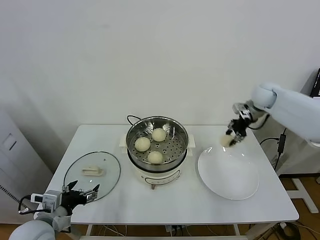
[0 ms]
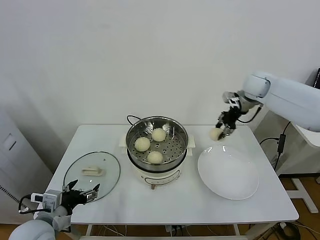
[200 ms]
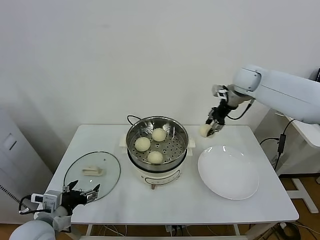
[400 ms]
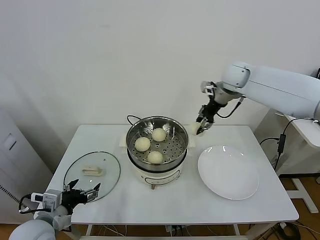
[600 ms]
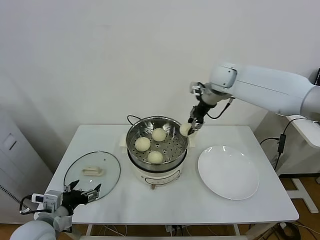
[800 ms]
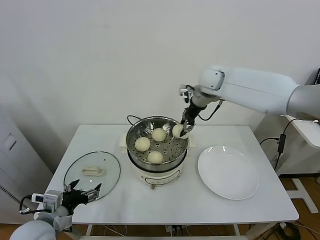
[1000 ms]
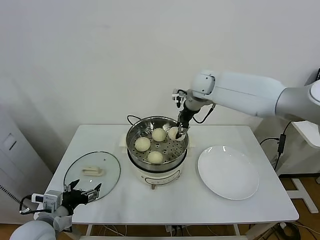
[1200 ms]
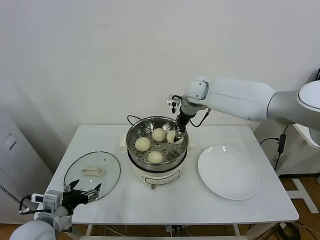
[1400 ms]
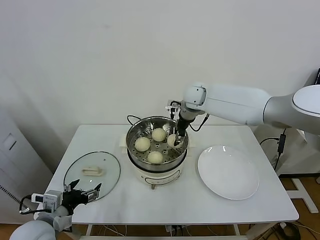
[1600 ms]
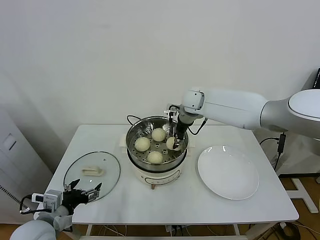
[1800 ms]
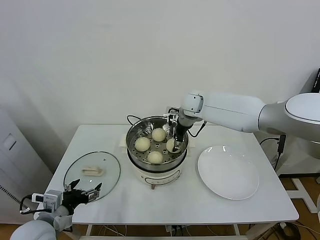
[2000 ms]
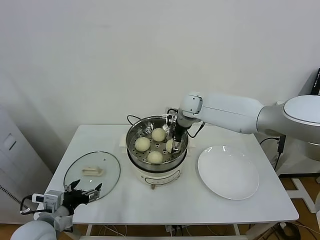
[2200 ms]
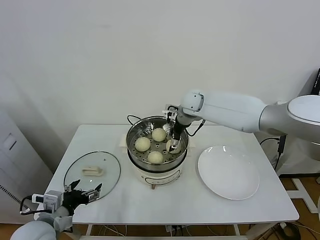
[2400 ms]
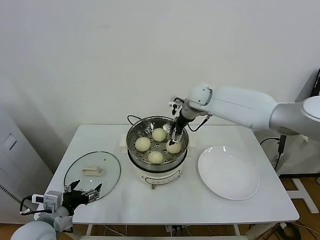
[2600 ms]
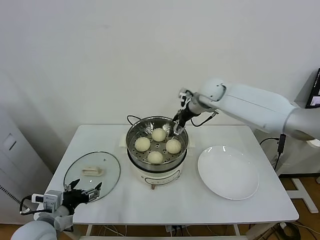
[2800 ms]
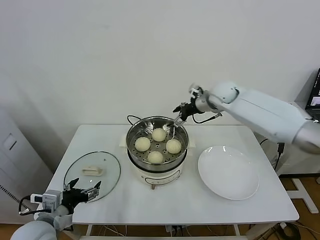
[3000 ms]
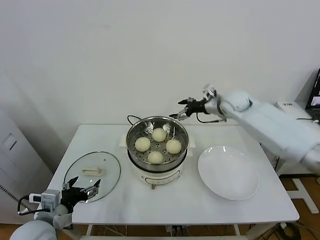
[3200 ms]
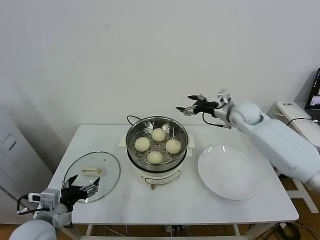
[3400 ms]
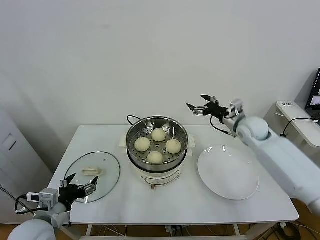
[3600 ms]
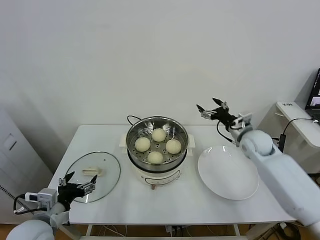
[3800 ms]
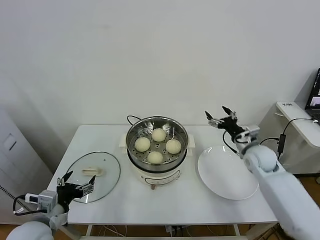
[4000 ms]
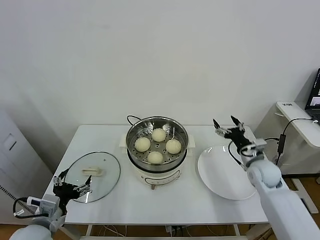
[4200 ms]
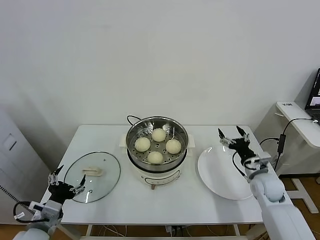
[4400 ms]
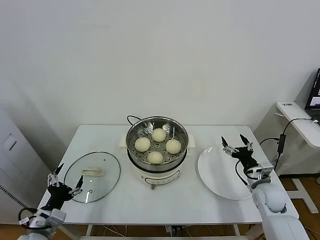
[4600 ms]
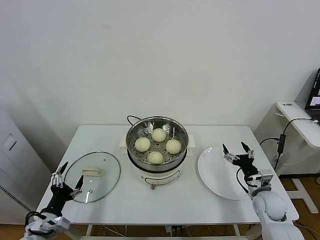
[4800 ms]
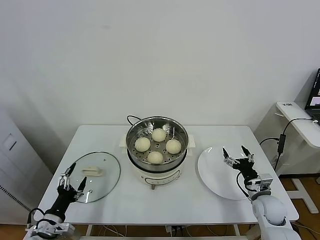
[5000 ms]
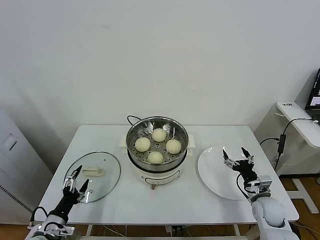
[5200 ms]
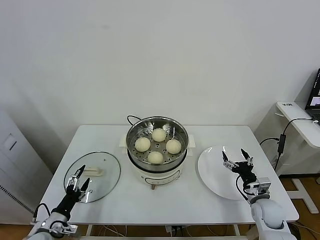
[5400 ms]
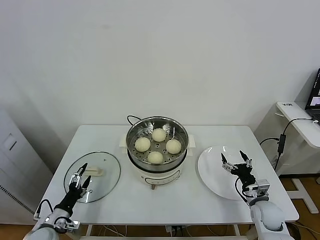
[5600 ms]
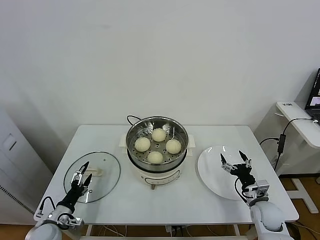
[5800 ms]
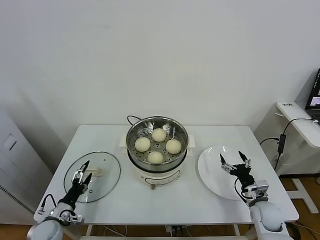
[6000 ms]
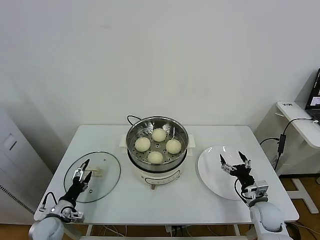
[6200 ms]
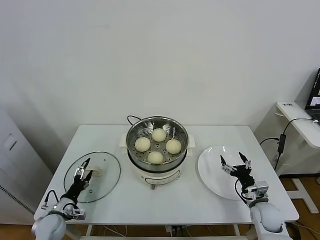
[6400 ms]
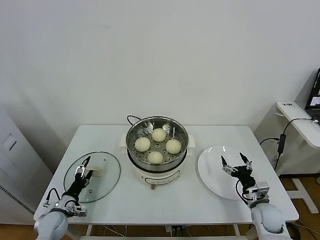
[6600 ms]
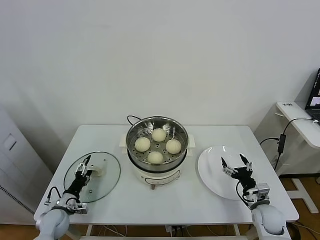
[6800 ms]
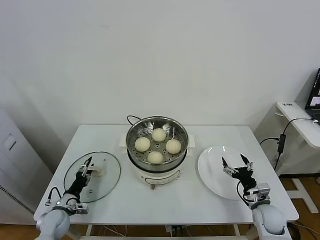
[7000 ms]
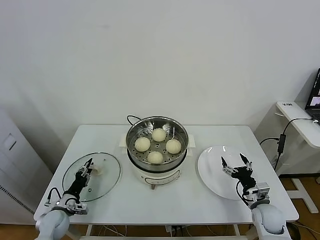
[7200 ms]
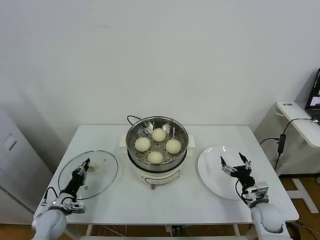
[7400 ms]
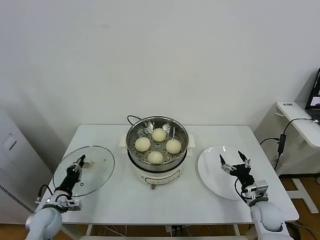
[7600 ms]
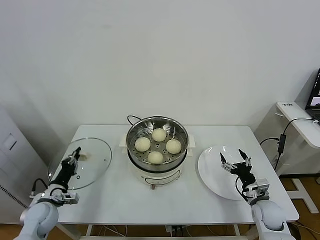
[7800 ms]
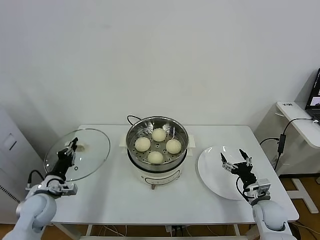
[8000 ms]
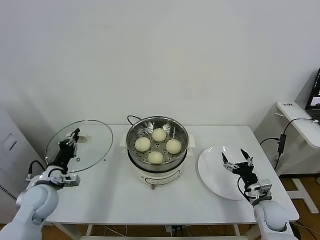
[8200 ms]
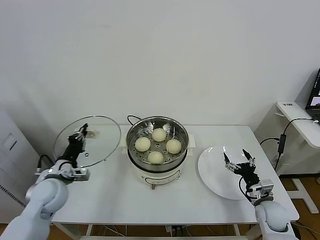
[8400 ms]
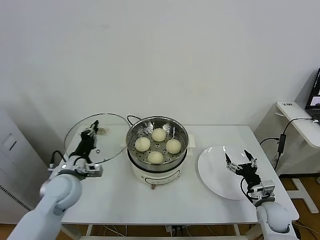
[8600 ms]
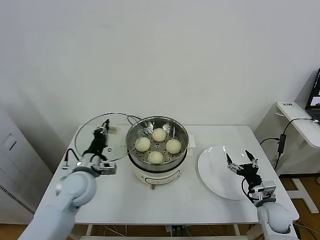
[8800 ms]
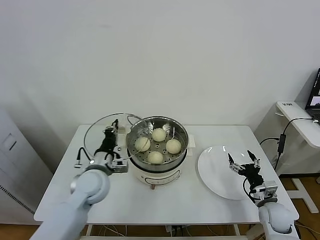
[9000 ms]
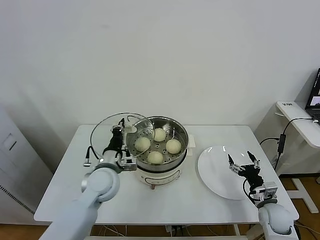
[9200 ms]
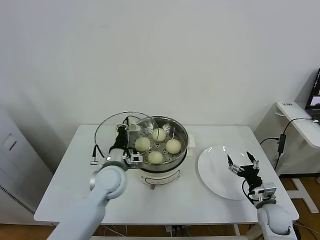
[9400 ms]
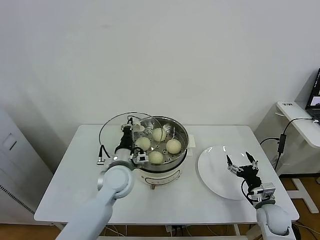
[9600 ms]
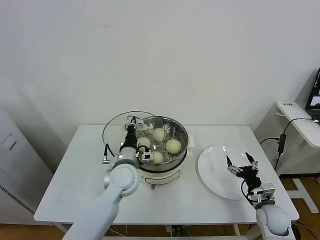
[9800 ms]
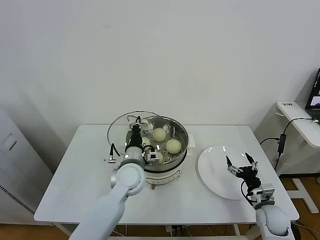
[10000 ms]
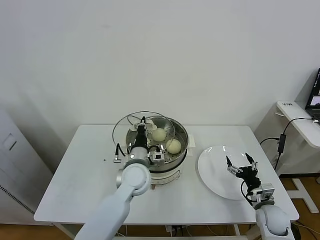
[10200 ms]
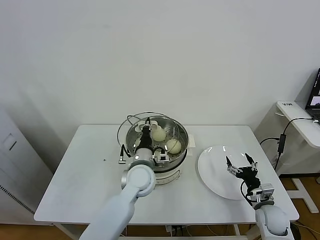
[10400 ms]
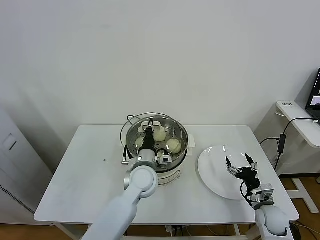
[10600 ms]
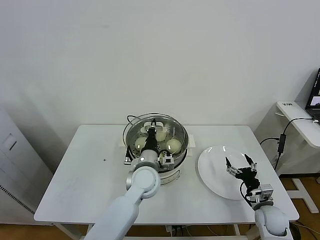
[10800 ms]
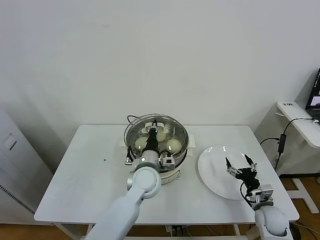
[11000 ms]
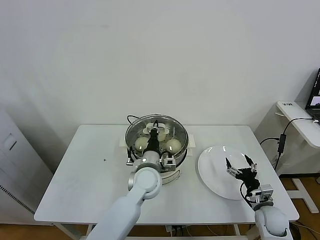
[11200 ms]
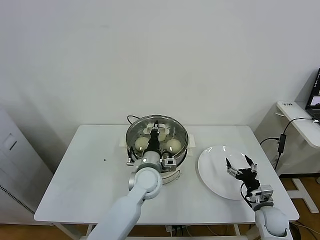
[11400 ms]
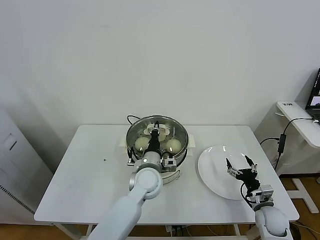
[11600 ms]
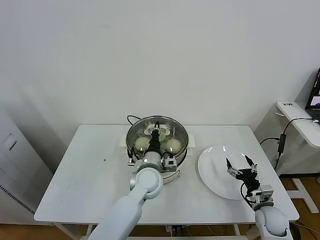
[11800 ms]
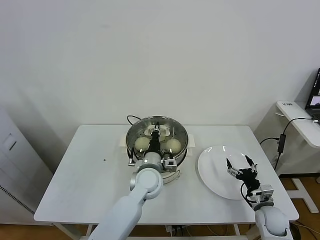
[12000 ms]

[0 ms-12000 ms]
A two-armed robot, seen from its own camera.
Task of the whole recording: take steamed baozi put them in steamer.
Step, 0 ms to 2200 ms: Place the baozi on the steamer with right gripper.
Step, 2600 ms to 7600 ms: Grasp the pot lid with left gripper.
0 ms to 1600 ms: The right gripper travels to the left by roughly 25 cm.
1600 ms to 3000 ms: The right gripper travels to the right by some 10 cm, and opens.
3000 ms to 4400 ms: The right gripper shifts roughly 35 cm downward, backward and to the right.
4400 ms to 6000 ms: The right gripper moves downward and backward, some 10 cm. The left gripper travels downward and forward by roughly 15 cm.
6000 ms to 7600 ms: The left gripper closes up.
7600 ms to 9000 ms: The left gripper heads to the right and upward, covering about 25 cm.
9000 ms to 10400 ms: The left gripper moves to the right, about 15 cm.
10400 ms to 12000 ms: The grippers stay close to where they were, moving slightly.

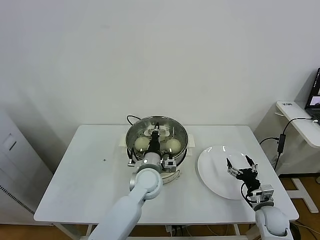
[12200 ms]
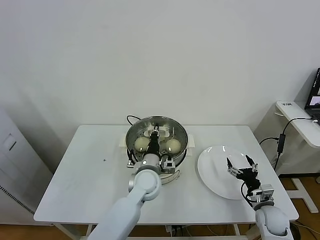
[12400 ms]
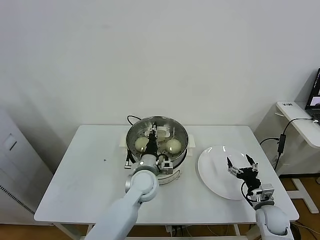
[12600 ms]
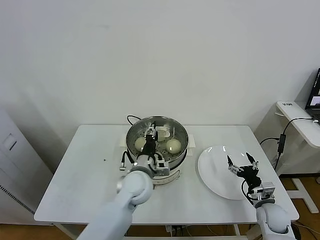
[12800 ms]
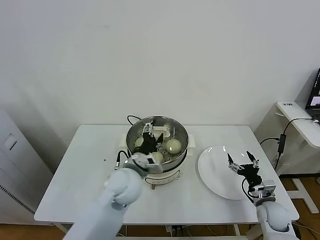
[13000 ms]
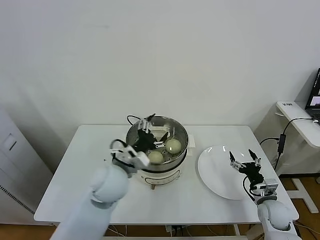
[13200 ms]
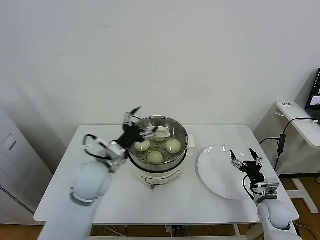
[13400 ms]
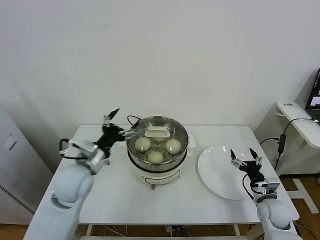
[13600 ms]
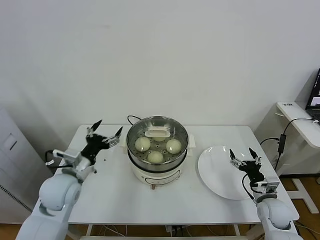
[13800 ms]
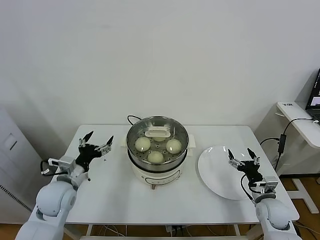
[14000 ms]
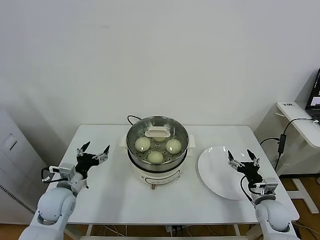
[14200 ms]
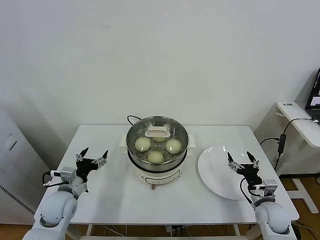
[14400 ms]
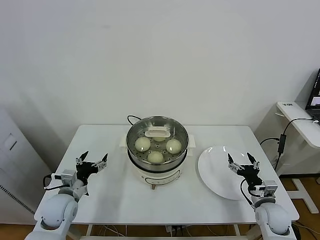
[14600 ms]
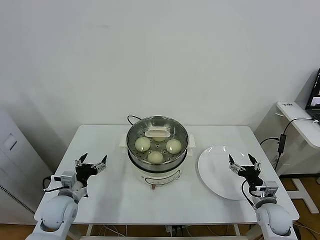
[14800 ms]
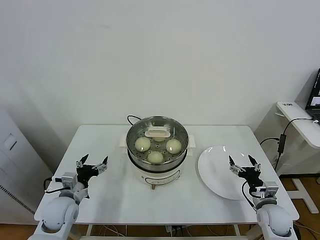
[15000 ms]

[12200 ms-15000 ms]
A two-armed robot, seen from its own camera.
Task of the whole recording: take steamed baozi put them in steamer.
12200 ms to 13600 ms: The left gripper goes about 20 cm to the left and upward, and opens its fingers.
13600 ms to 15000 ms: The left gripper moves downward and to the left, some 15 cm.

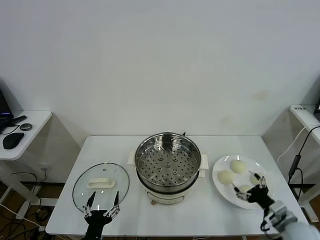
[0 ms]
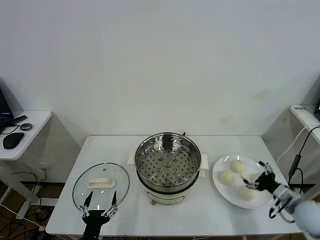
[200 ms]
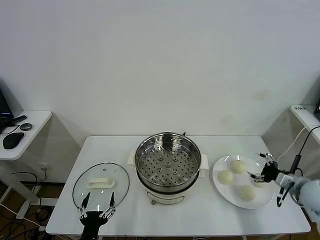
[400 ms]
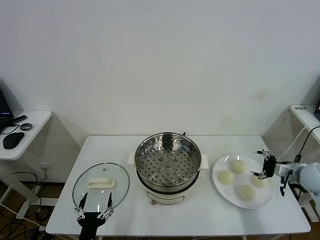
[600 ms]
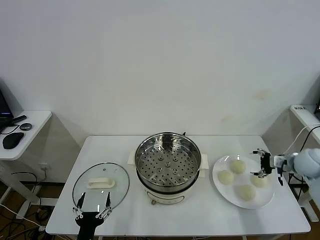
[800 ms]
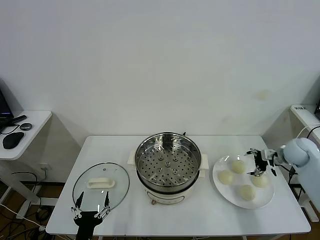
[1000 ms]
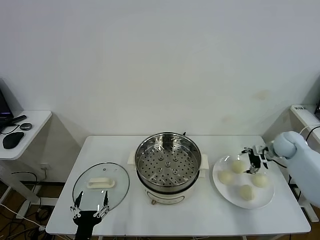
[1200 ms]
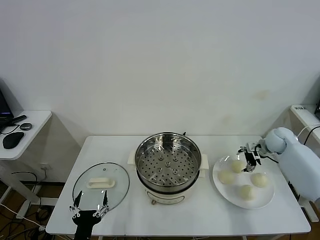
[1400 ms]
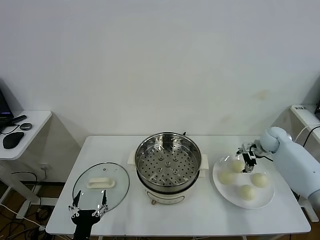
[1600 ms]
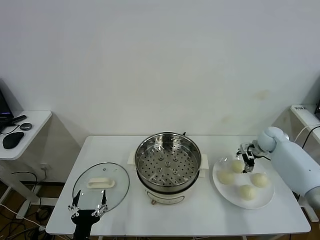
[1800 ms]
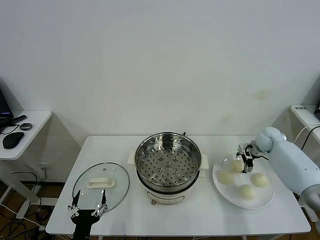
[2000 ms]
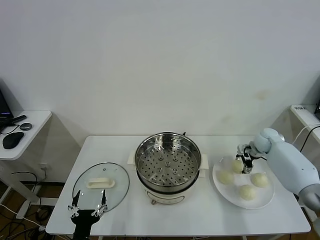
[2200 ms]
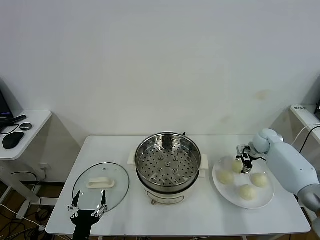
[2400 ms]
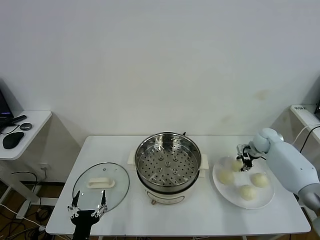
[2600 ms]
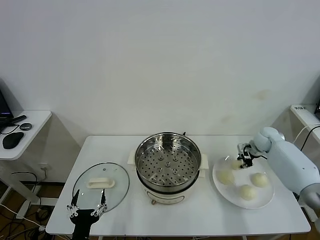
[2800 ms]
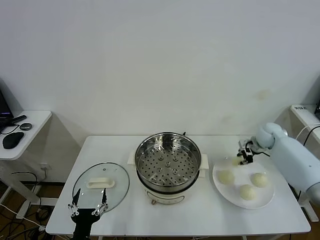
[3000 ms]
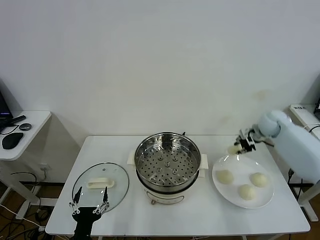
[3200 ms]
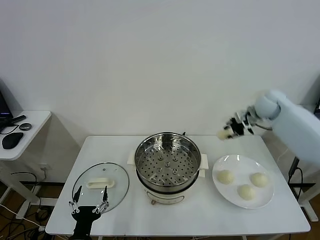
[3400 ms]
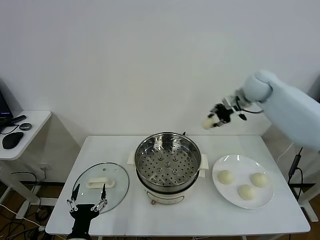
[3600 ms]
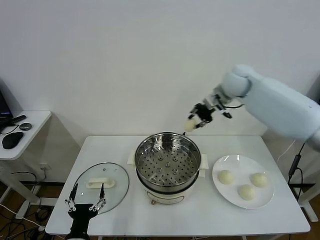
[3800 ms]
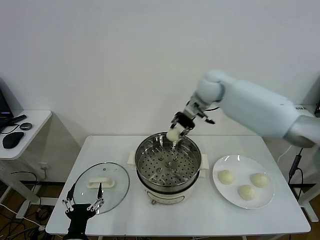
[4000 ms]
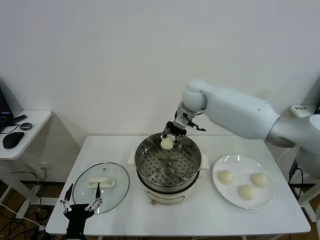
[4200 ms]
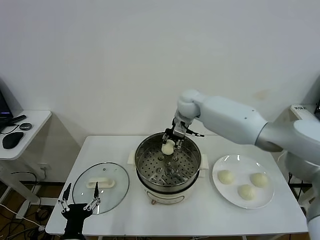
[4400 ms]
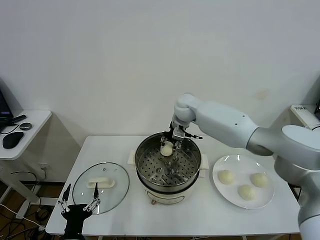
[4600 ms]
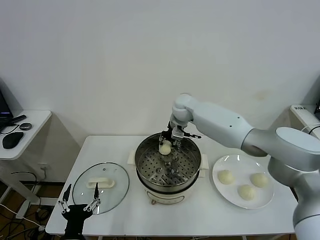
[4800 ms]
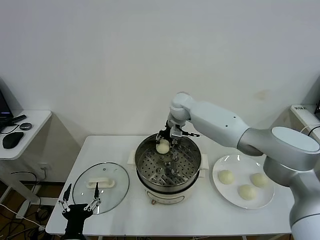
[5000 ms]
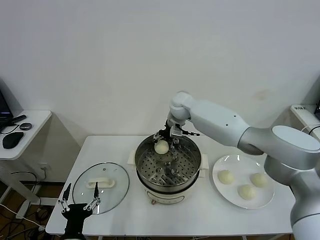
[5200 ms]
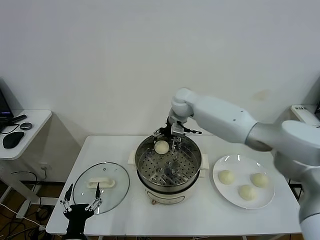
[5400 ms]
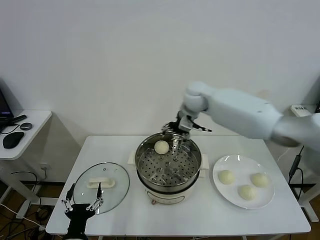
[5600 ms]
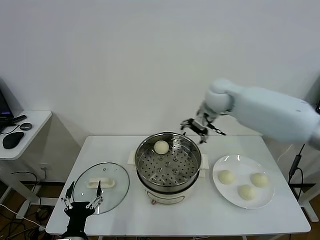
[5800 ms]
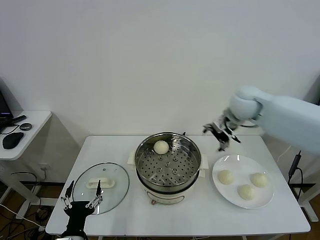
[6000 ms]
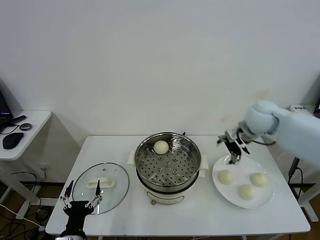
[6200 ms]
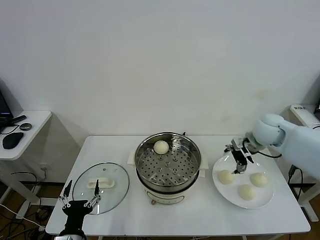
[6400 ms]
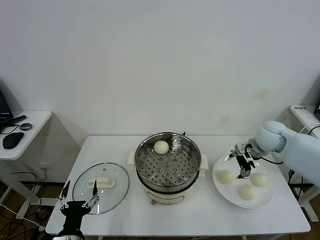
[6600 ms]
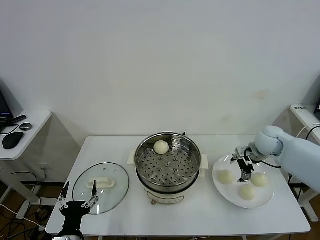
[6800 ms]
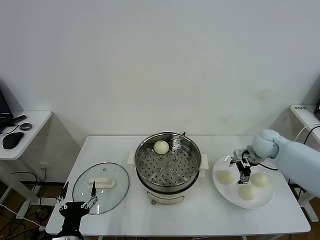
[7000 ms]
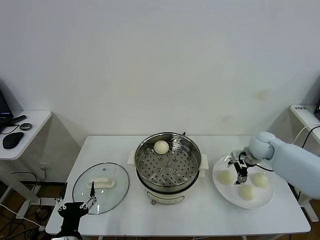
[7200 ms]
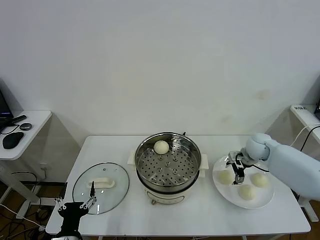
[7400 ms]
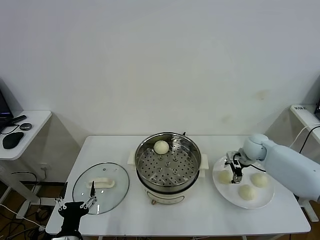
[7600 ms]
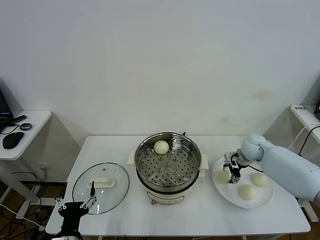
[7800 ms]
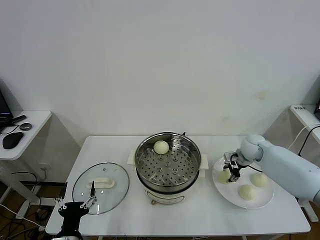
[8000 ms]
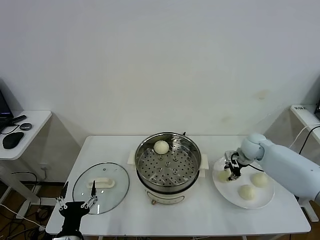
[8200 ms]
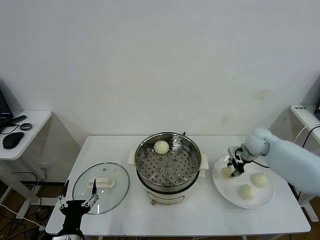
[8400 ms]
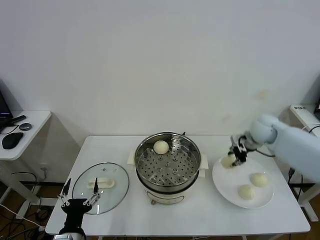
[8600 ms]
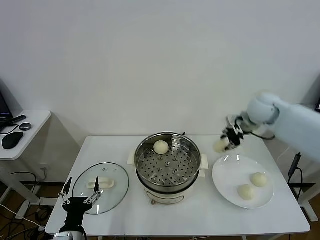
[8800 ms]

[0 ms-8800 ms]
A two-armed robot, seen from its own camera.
Task of the whole recording: take steamed baozi put them in steamer.
Step, 0 ms to 2200 ms: Grasp the baozi in the plate with right gripper.
Step, 2600 ms to 5400 ms: Place the baozi on the steamer with right gripper.
Step, 5600 ms to 8000 ms: Grasp the baozi in the plate with right gripper.
1400 ms to 3000 ms: The right gripper closes.
3000 ms to 4400 ms: The right gripper moves to the left, about 35 cm.
4400 ms to 5800 ms: The right gripper moves to the right and upward, roughly 10 cm, and opens up.
5800 ms to 7400 ms: The right gripper goes approximately 25 cm downward and to the right.
7400 ms to 8800 ms: The right gripper moves upward, approximately 15 cm, and closes up.
